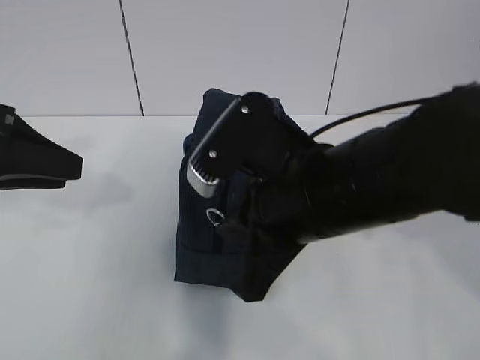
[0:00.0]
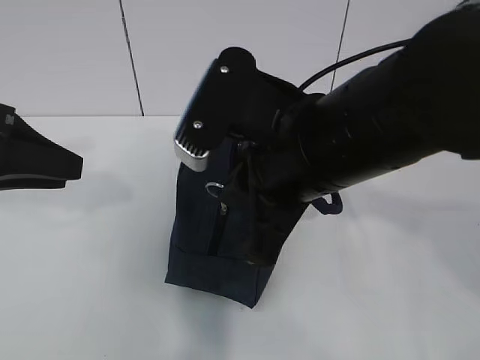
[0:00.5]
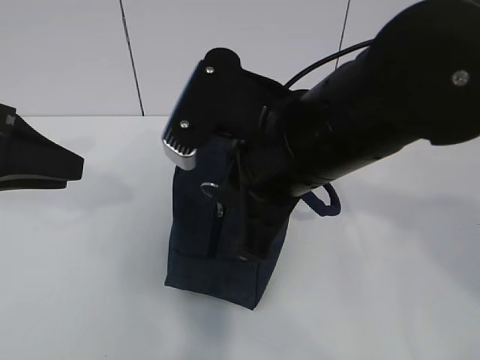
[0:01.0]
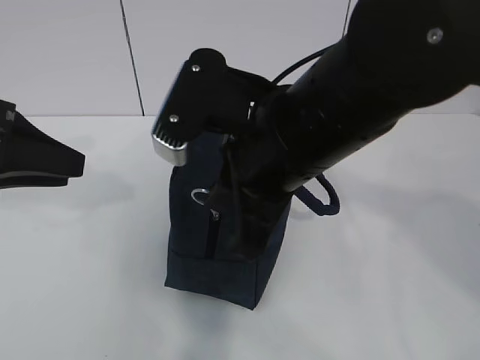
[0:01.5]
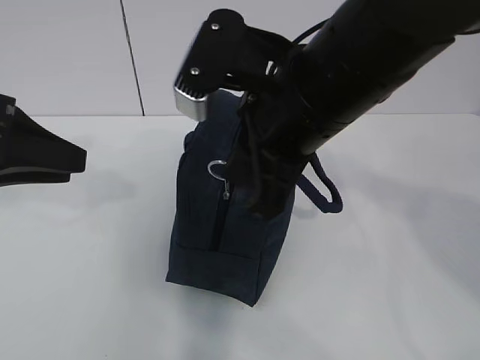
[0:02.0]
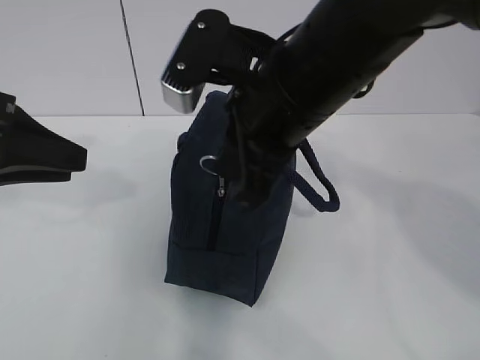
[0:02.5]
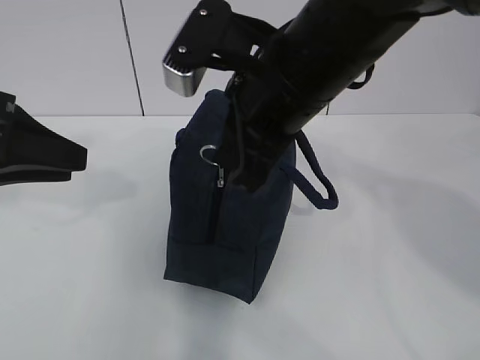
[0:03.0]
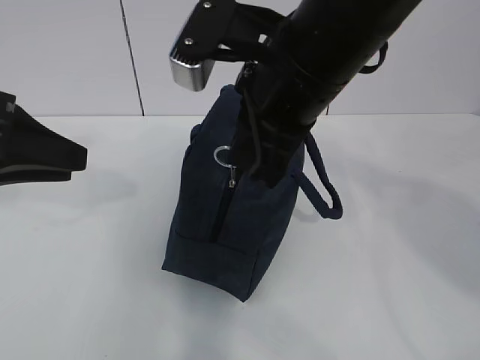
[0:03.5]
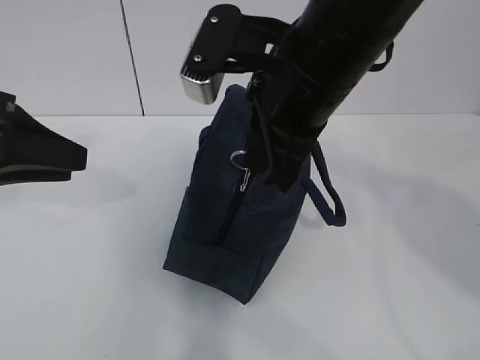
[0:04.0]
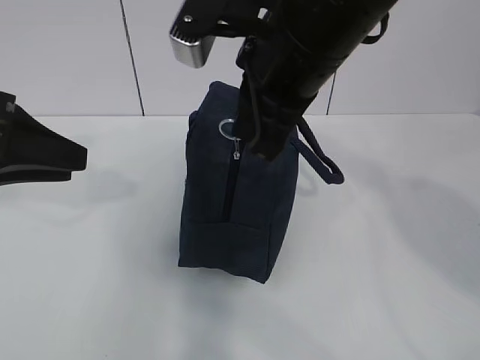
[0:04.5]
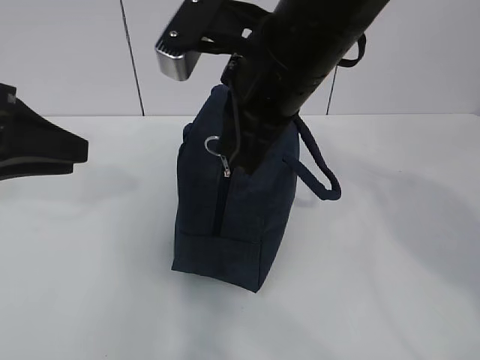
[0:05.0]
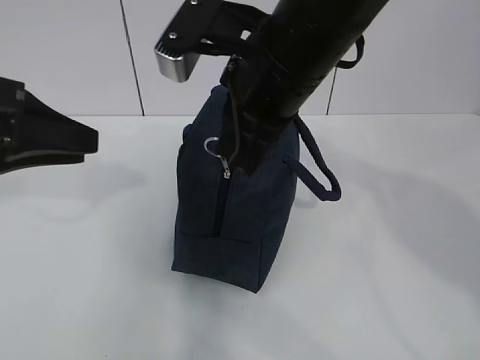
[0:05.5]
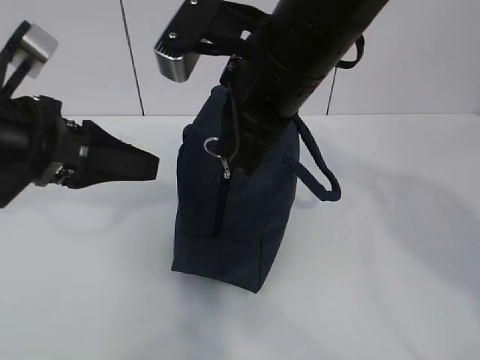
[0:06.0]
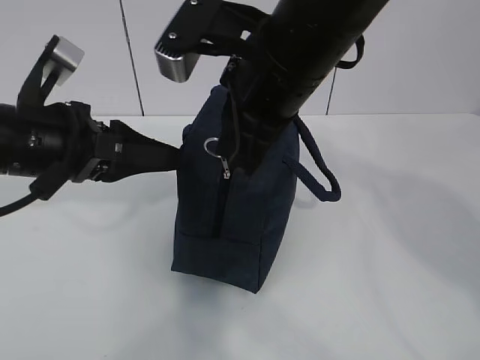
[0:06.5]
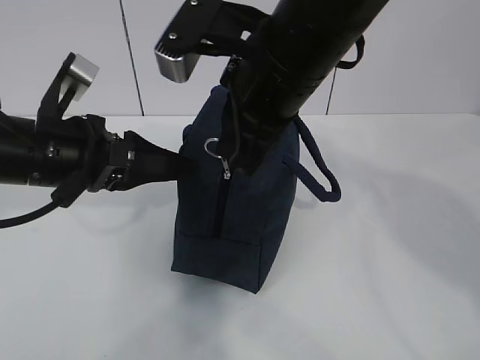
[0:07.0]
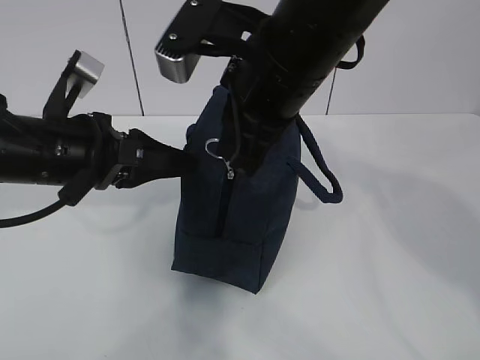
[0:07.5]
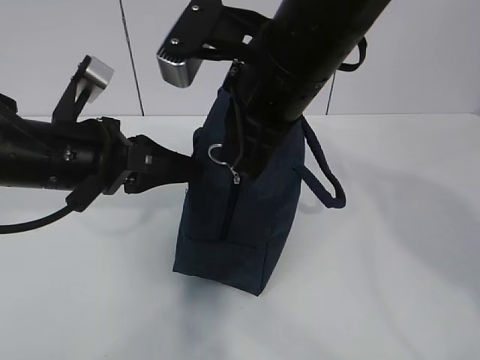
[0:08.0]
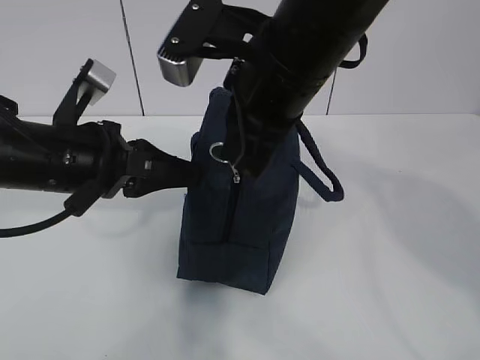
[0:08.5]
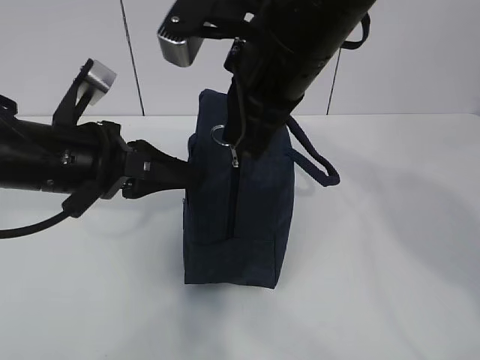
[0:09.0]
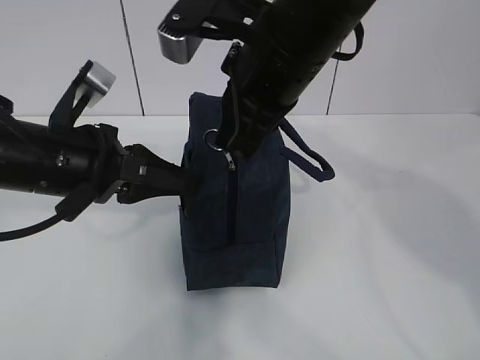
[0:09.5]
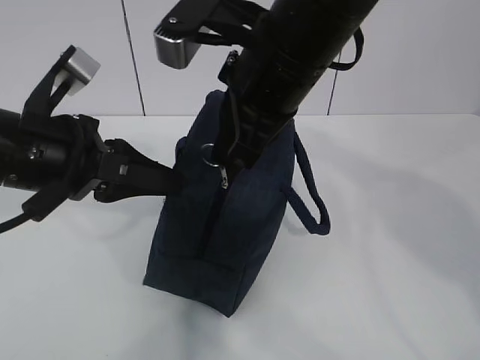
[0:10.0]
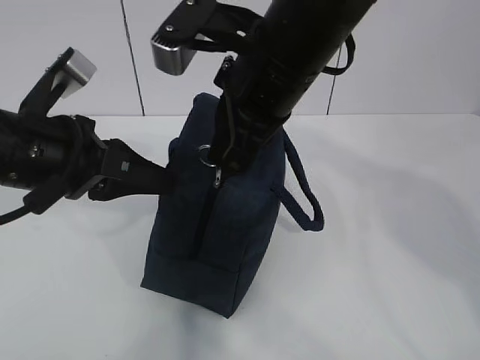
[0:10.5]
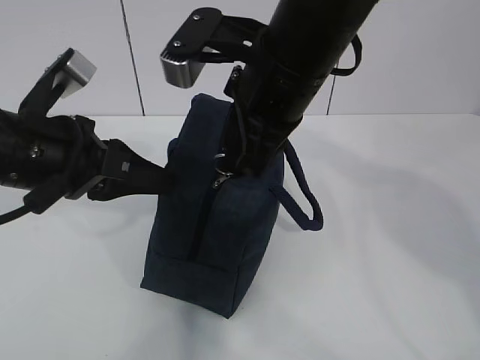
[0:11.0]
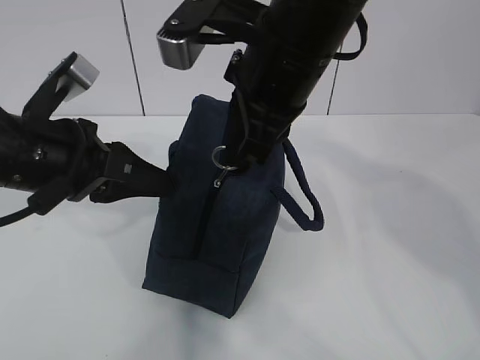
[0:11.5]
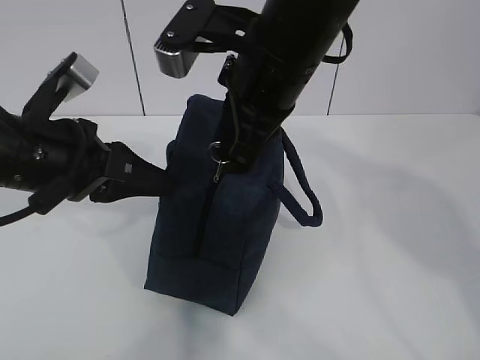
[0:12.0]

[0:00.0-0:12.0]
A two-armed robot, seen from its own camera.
Step, 0:00.0 to 0:06.5: Grab the lunch bag with your left hand.
Step, 0:07.0 to 0:11.0: Pull the zipper with your right hand.
0:00.0 to 0:02.0: The right gripper heads upward, covering some 5 cm.
0:02.0 to 0:04.0: There are only small adjustments of the grippers.
0:04.0 to 0:06.0: The left gripper moves approximately 5 cm.
0:06.0 to 0:08.0: The left gripper shifts by roughly 5 cm, and closes up.
0:08.0 to 0:12.0: The grippers stay close to where they were, moving slightly.

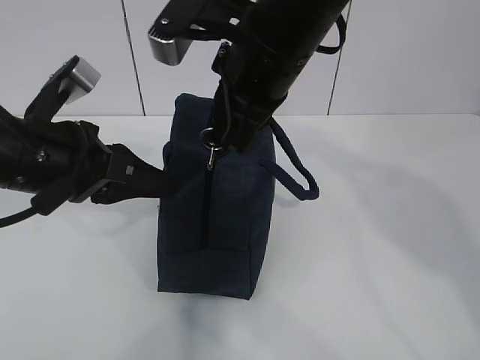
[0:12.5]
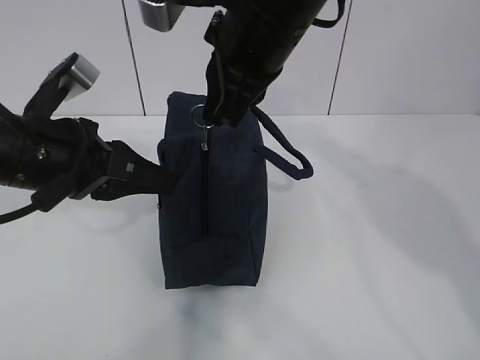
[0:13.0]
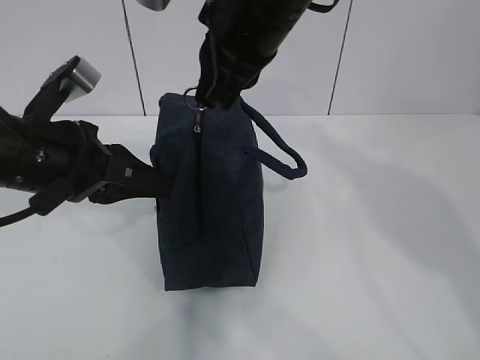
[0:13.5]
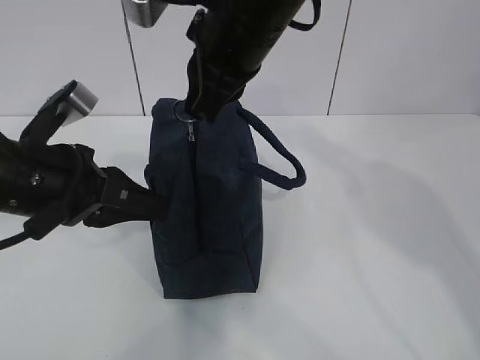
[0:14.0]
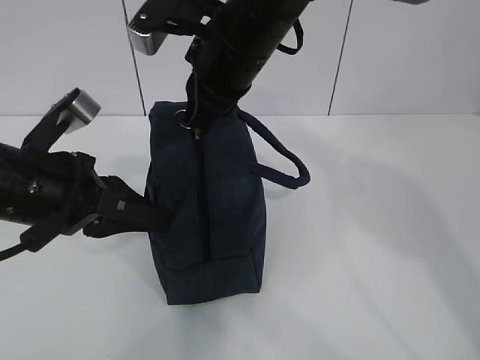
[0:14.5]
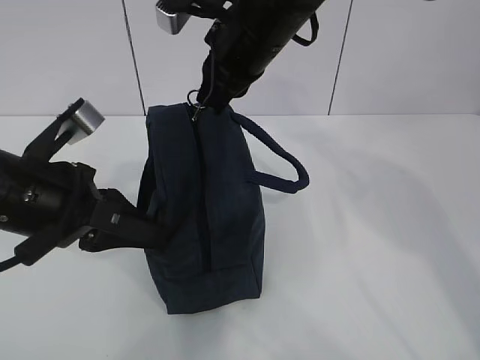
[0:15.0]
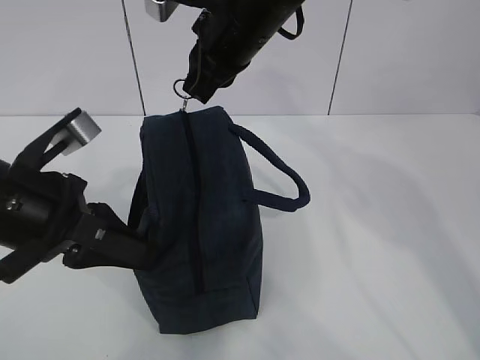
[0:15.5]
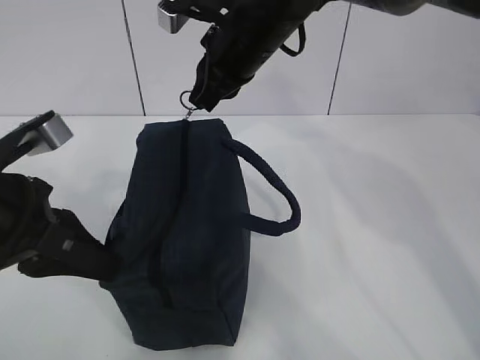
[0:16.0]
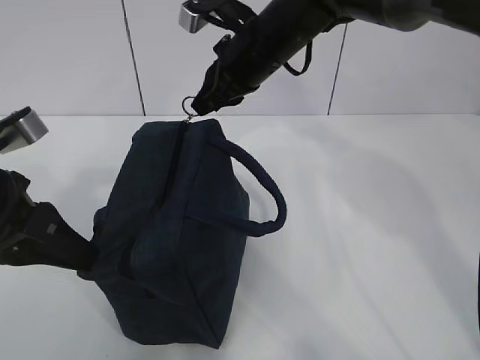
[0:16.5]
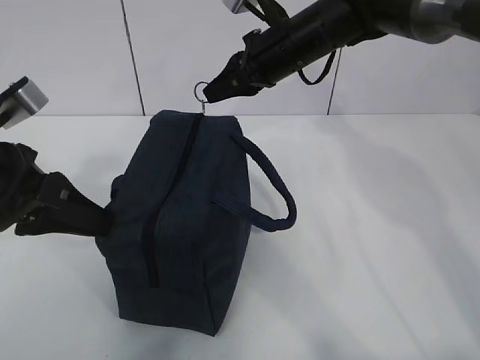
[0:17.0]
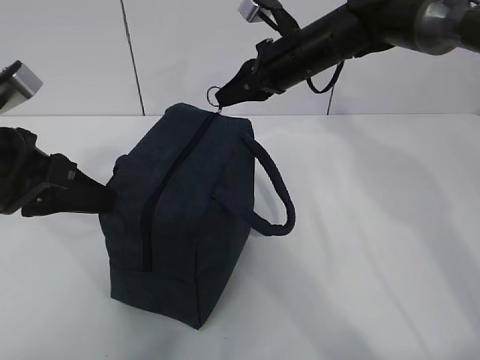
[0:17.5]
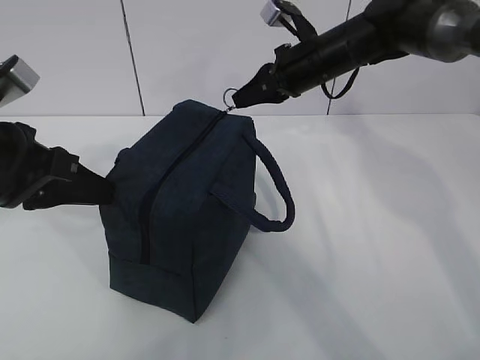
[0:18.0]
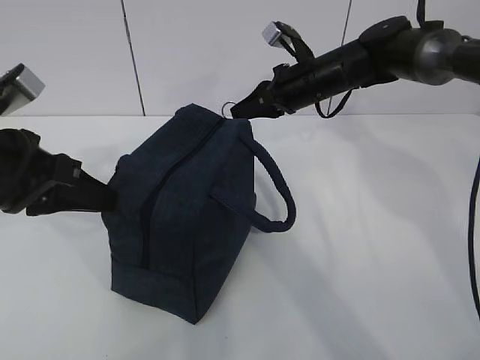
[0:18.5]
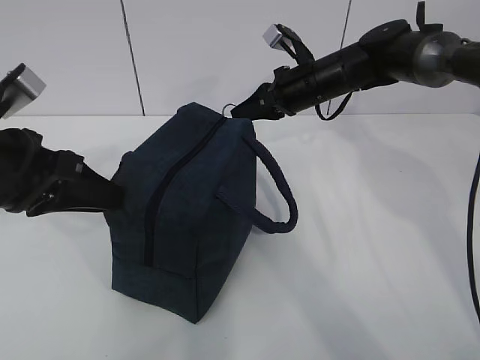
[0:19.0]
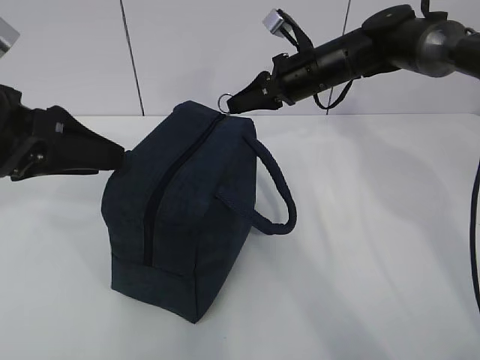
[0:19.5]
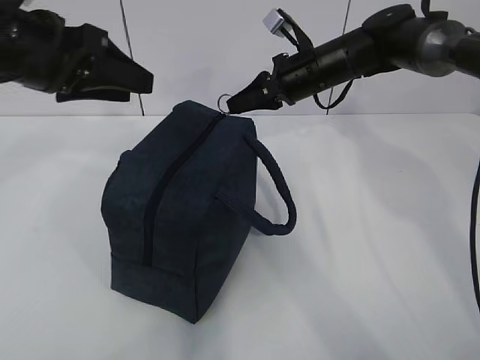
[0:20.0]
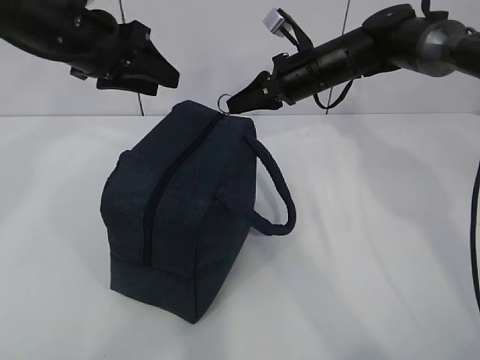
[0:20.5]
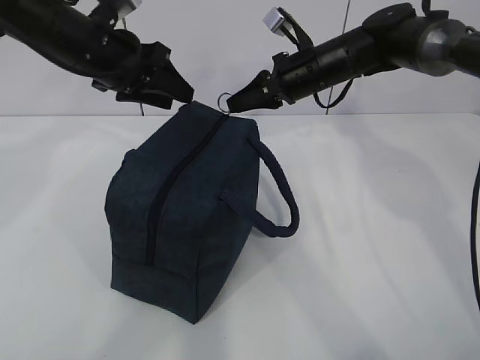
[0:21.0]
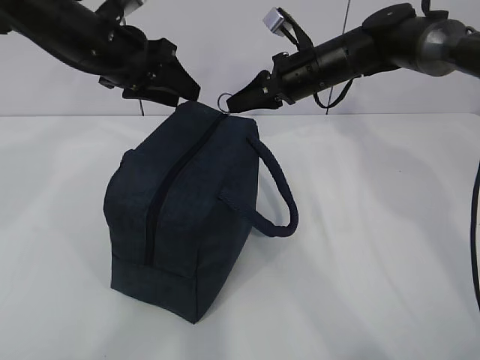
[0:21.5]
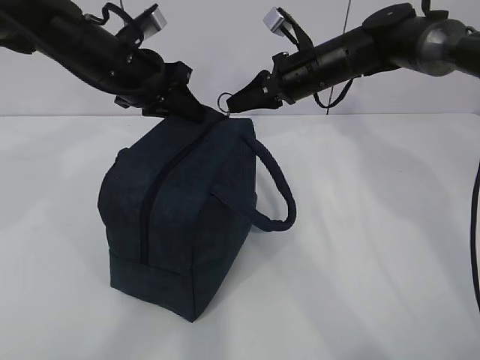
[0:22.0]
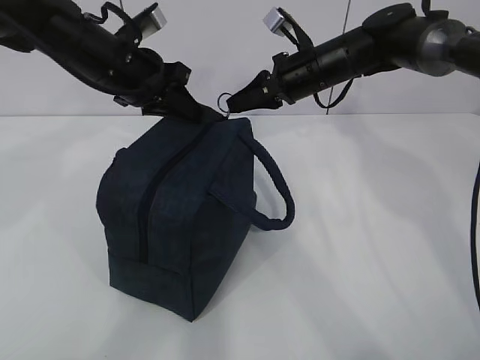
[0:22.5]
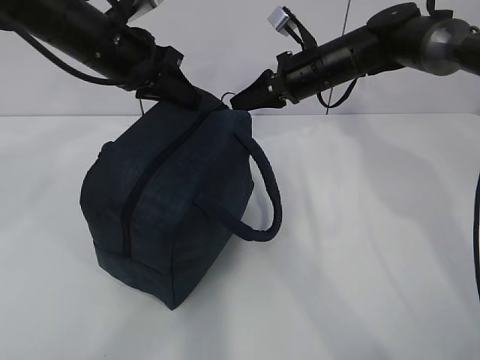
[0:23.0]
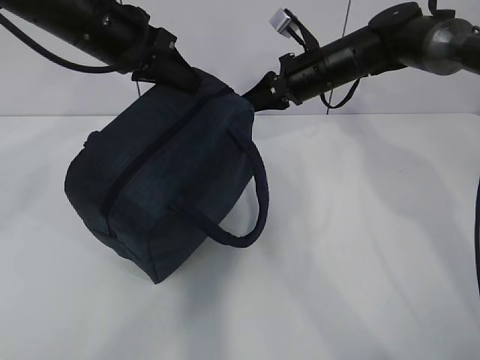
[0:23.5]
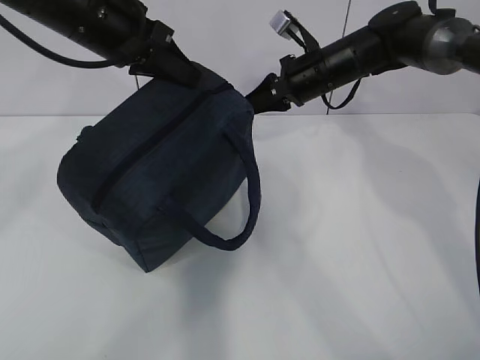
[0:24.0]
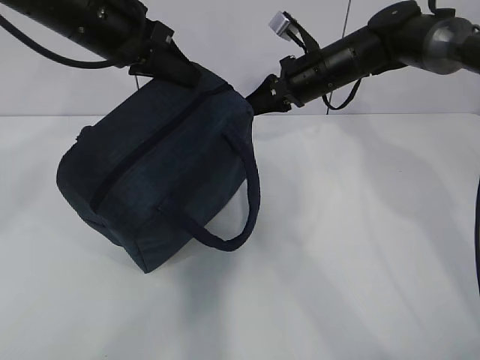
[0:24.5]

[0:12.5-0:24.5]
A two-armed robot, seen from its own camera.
0:12.5 to 0:14.5: The right gripper ends up approximately 5 cm from where it was.
0:14.5 to 0:16.5: The left gripper moves about 5 cm, while the right gripper moves forward, some 5 cm.
0:16.5 to 0:18.5: The right gripper goes about 15 cm to the right, downward and forward.
0:18.5 to 0:20.5: The left gripper goes some 15 cm forward, and opens up.
0:20.5 to 0:22.5: The left gripper moves some 5 cm, and closes.
0:22.5 to 0:24.5: The left gripper travels upward by about 5 cm.

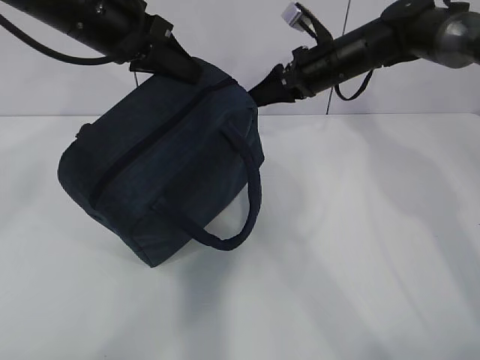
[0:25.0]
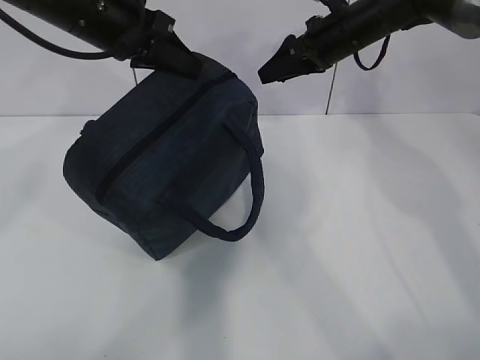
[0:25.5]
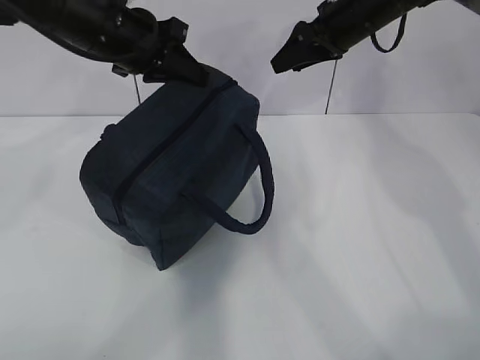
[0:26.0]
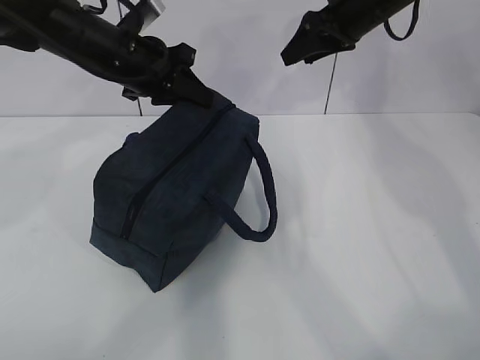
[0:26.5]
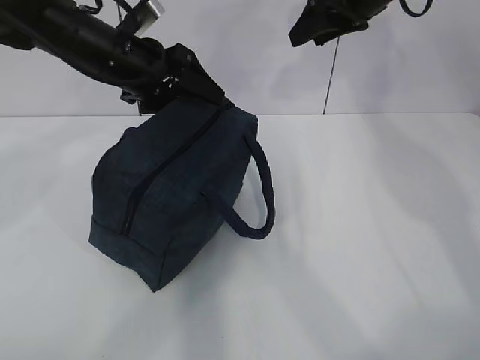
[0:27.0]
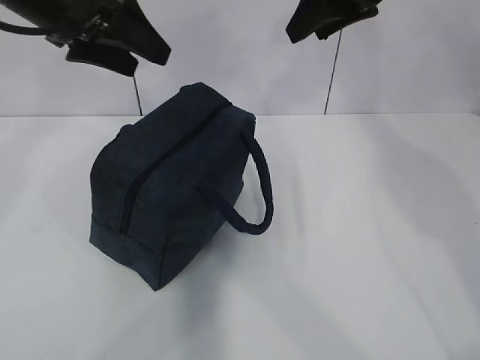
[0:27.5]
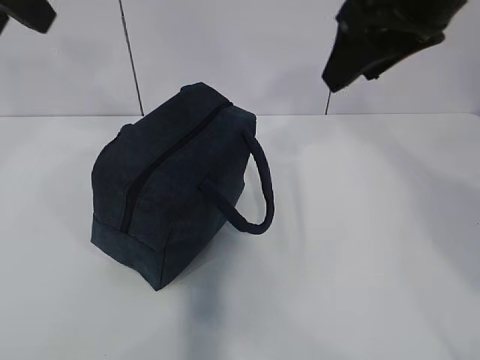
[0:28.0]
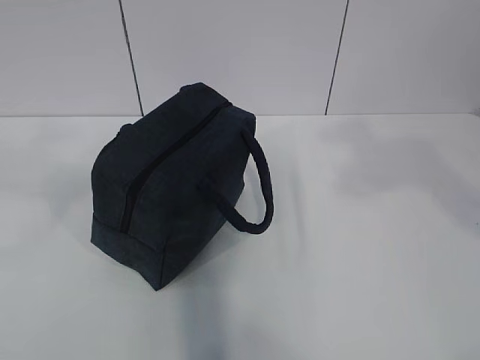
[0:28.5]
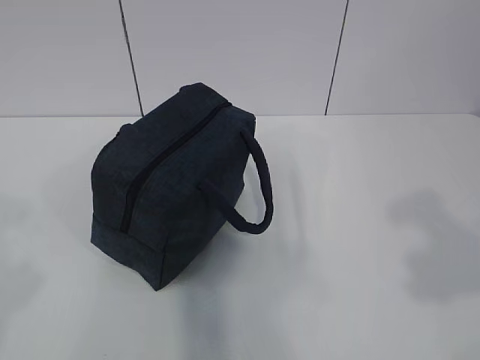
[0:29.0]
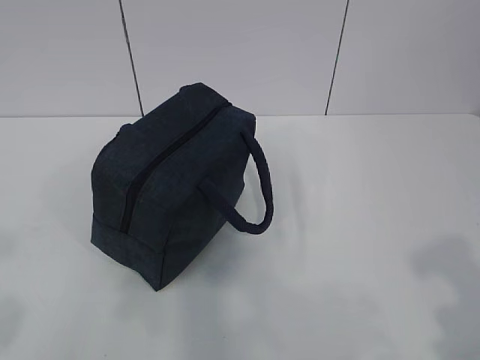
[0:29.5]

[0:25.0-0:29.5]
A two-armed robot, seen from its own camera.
0:25.0 to 0:27.0: The right gripper shifts about 10 cm upward. The left gripper heads downward, covering some 5 cm, and opens up.
0:27.0 to 0:29.5: The right gripper travels backward by roughly 40 cm; the left gripper moves backward and to the left, about 40 cm.
